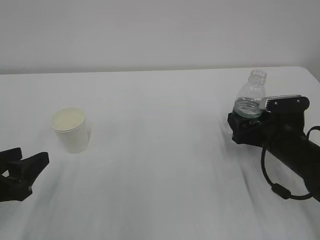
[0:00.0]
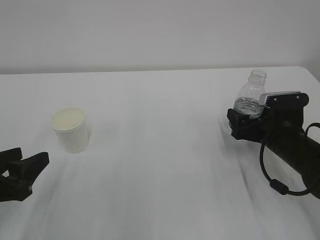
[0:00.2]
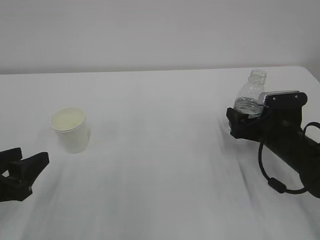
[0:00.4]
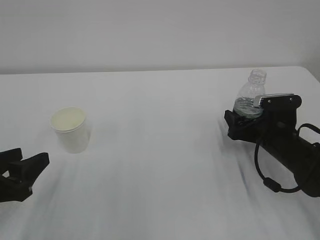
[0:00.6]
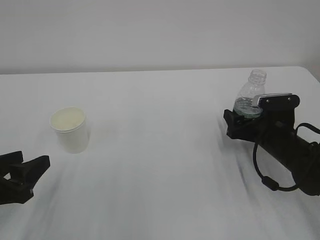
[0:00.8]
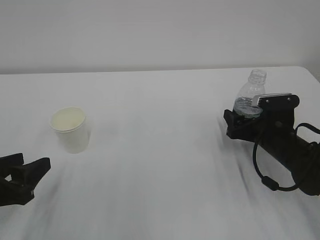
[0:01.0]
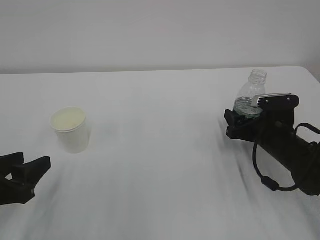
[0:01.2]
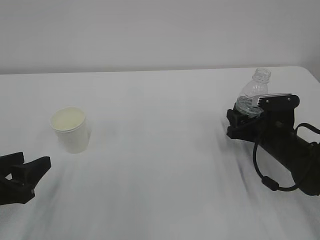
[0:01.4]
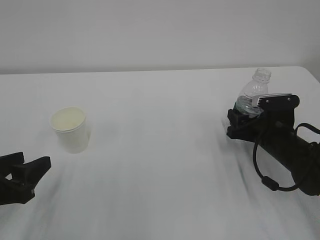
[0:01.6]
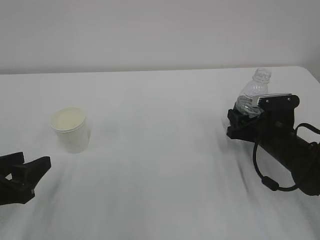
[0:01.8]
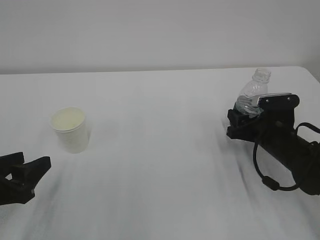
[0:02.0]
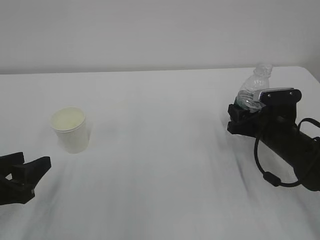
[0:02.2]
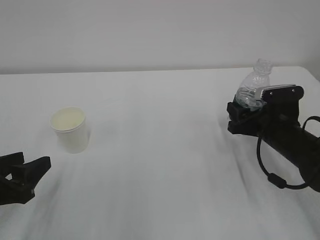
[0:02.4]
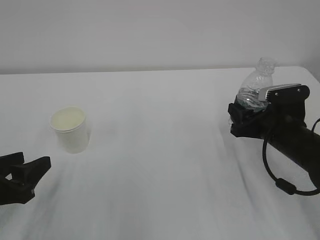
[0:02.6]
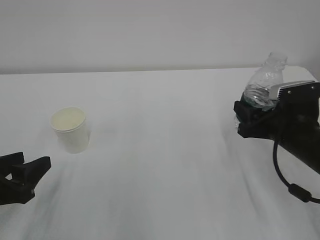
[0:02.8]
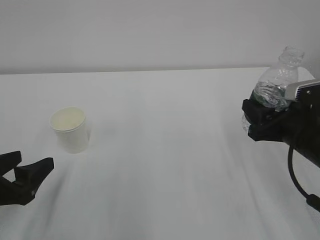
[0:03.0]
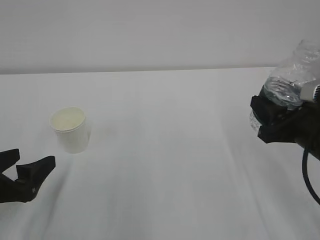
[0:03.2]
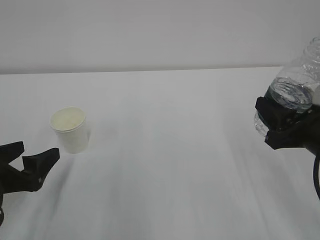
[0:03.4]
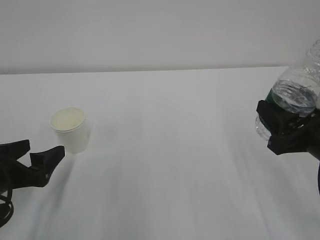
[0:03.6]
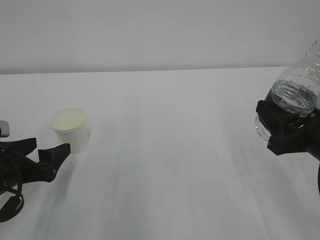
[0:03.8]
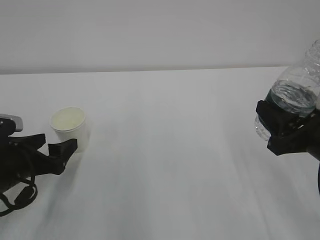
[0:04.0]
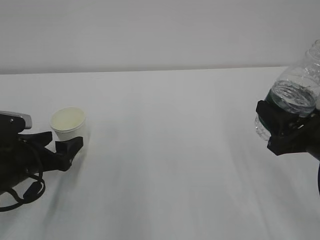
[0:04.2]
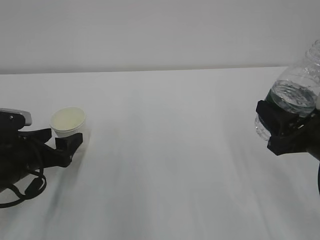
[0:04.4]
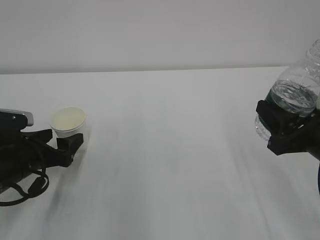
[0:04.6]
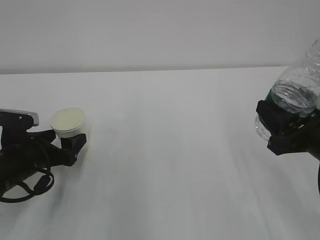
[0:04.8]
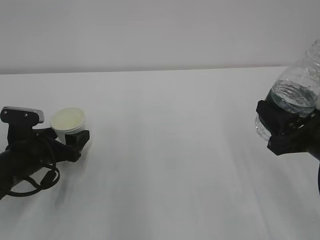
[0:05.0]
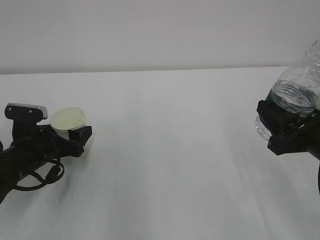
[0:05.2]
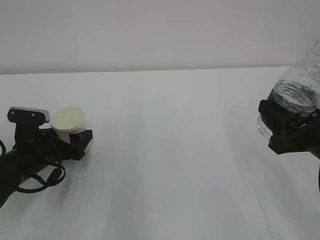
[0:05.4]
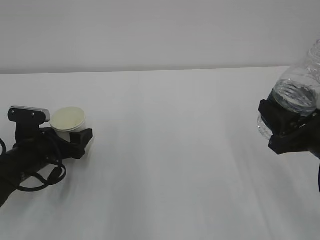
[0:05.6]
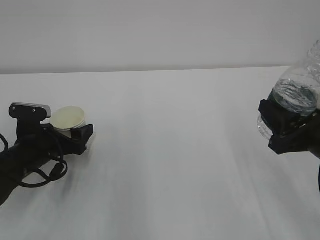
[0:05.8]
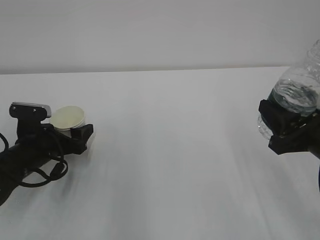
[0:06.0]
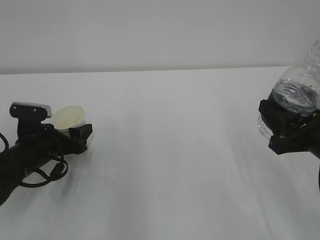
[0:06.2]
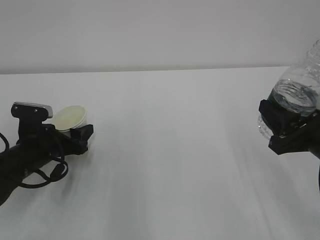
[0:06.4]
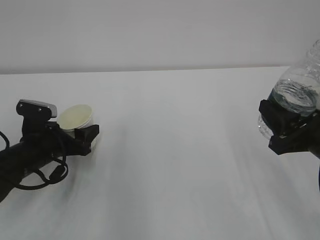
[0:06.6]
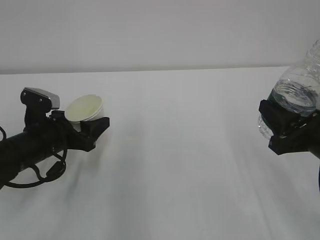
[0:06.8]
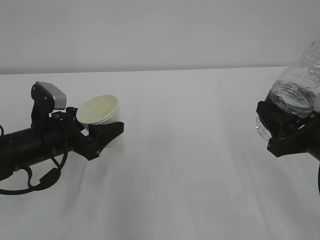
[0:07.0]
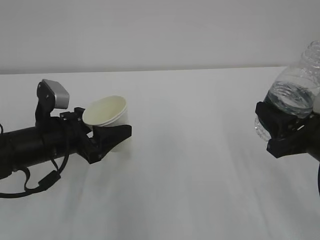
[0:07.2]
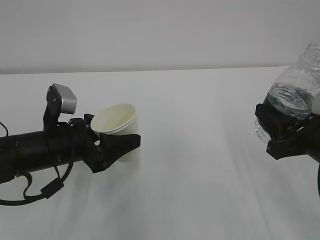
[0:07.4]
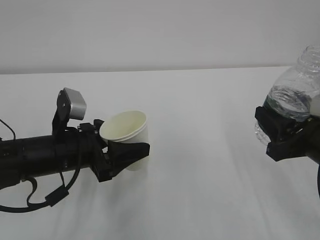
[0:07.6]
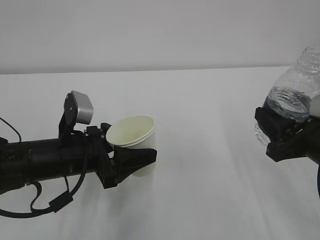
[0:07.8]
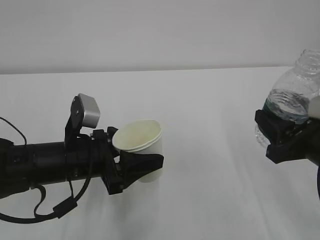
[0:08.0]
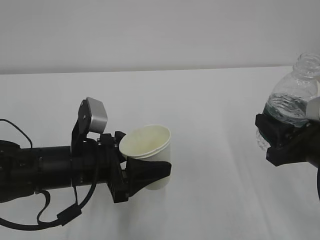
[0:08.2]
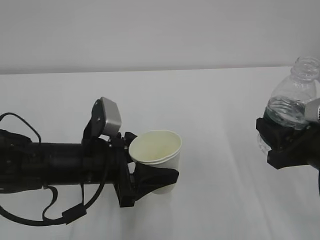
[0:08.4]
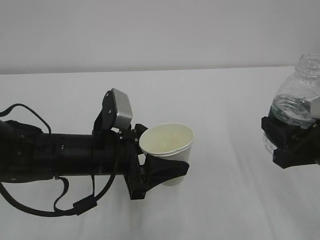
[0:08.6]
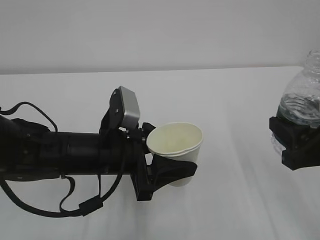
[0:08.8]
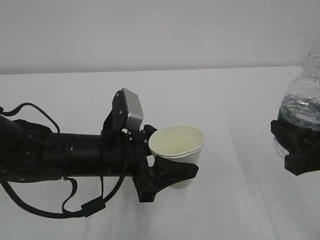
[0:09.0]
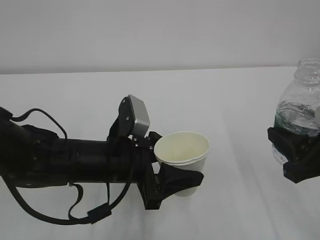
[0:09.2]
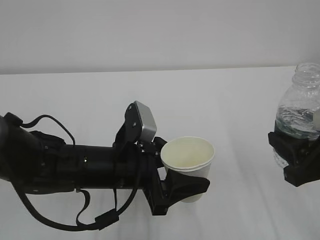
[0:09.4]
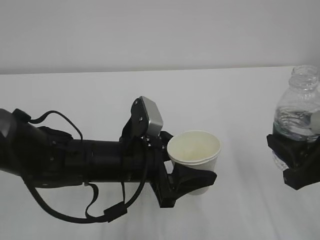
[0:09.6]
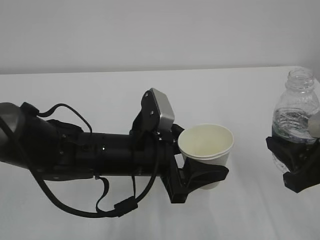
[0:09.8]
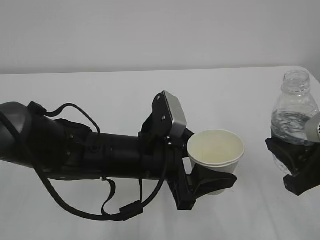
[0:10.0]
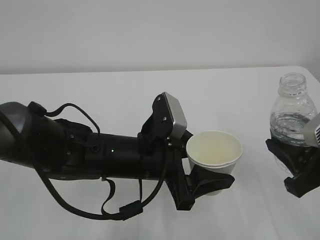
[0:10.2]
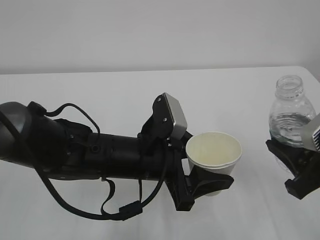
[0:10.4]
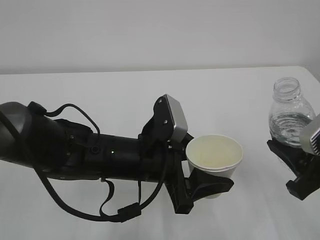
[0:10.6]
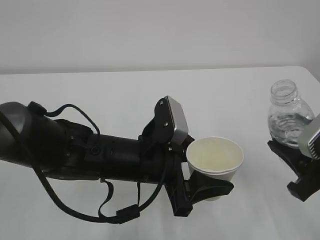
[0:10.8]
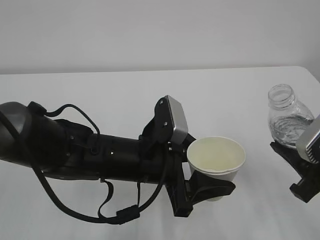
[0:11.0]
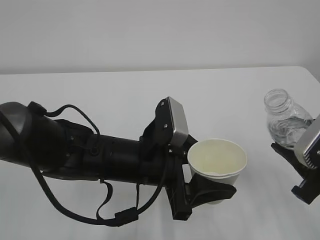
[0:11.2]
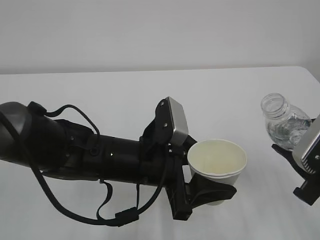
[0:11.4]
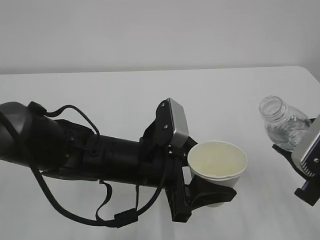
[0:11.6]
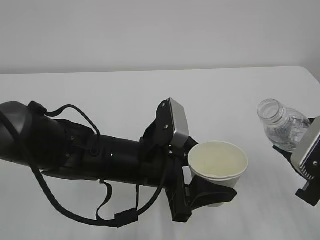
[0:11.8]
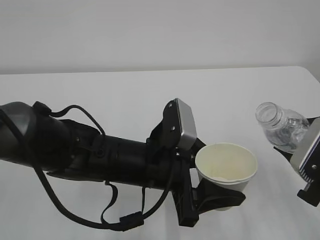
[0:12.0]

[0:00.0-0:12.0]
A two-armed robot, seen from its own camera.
0:00.0 to 0:01.6: The right gripper closes up.
0:01.6 to 0:03.0: The right gripper goes about 10 cm upward and backward.
0:03.0 to 0:04.4: The left gripper travels forward by approximately 10 cm, and opens. The right gripper goes some 5 cm backward.
0:04.4 to 0:06.0: The left gripper moves approximately 5 cm.
0:06.0 to 0:07.6: The left gripper heads to the right and upward, covering about 10 cm, and closes up.
0:07.6 to 0:09.0: The left gripper goes roughly 10 cm to the right.
0:09.0 to 0:10.4: The left gripper travels to the right by about 5 cm.

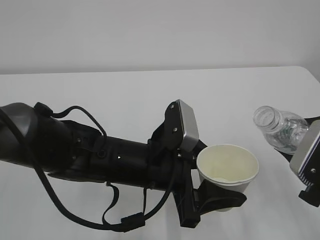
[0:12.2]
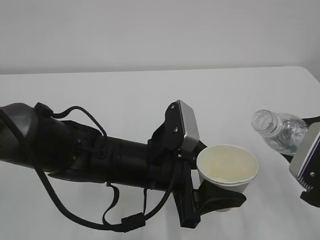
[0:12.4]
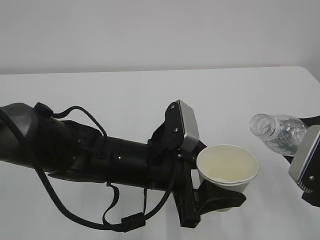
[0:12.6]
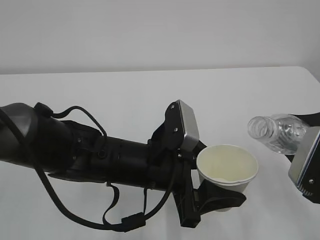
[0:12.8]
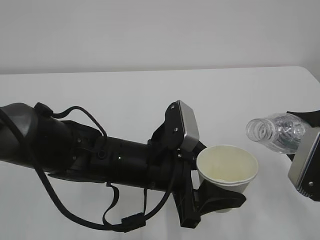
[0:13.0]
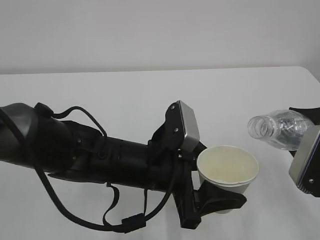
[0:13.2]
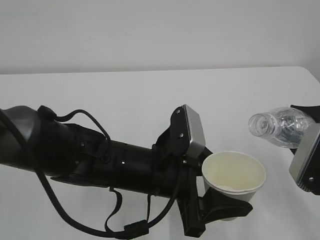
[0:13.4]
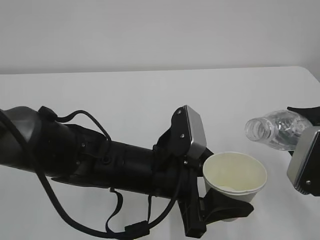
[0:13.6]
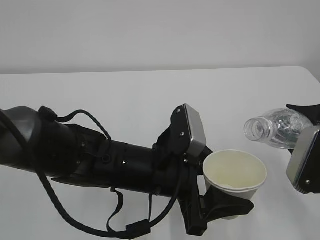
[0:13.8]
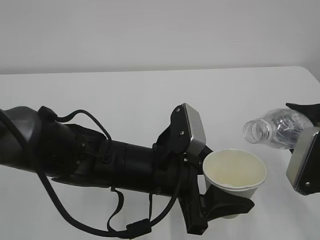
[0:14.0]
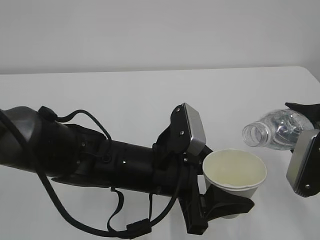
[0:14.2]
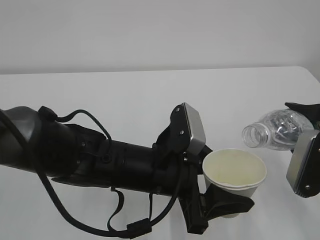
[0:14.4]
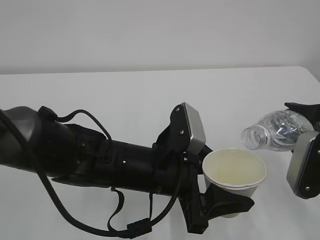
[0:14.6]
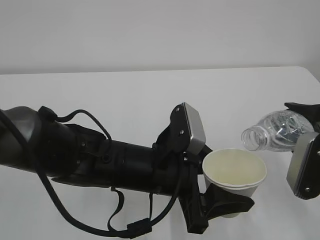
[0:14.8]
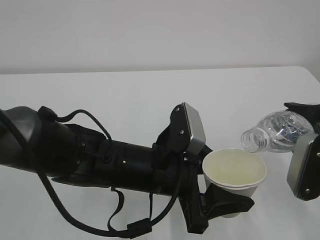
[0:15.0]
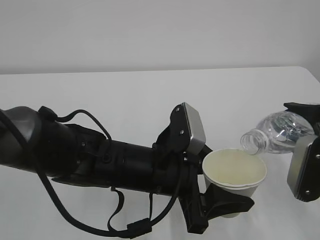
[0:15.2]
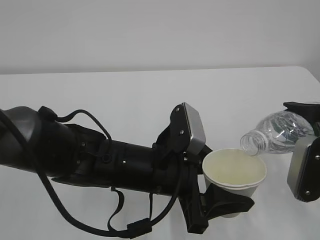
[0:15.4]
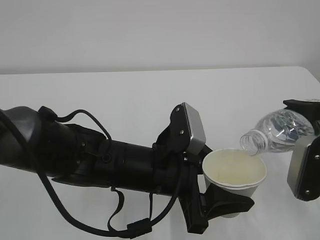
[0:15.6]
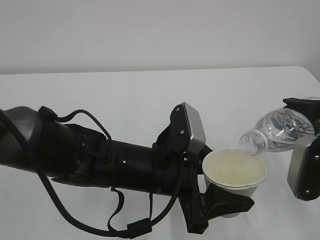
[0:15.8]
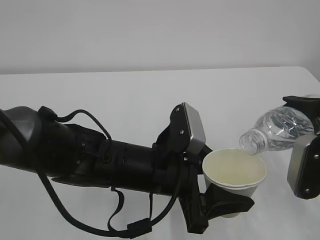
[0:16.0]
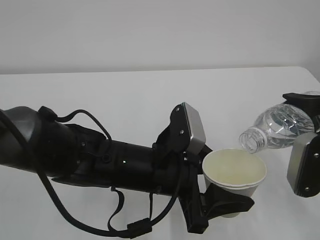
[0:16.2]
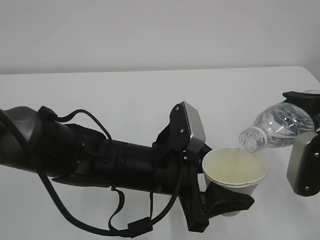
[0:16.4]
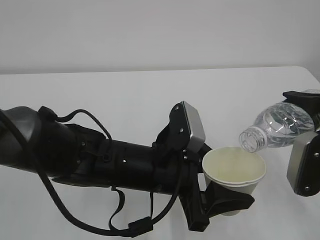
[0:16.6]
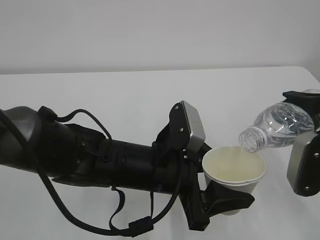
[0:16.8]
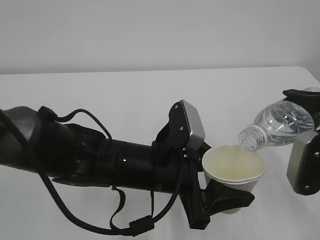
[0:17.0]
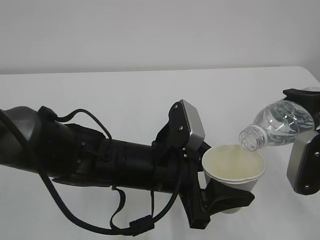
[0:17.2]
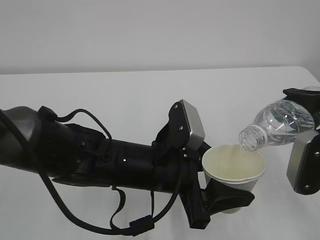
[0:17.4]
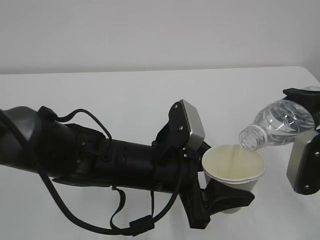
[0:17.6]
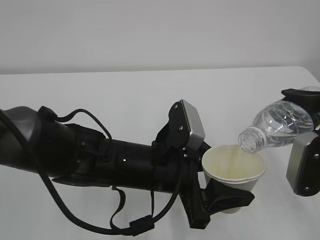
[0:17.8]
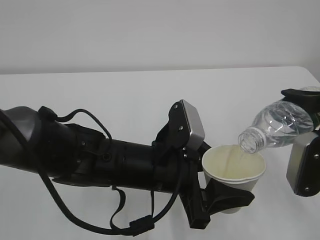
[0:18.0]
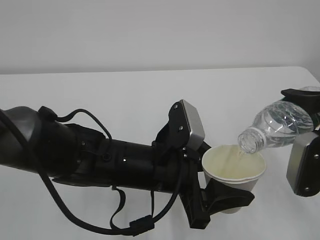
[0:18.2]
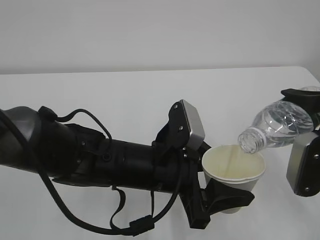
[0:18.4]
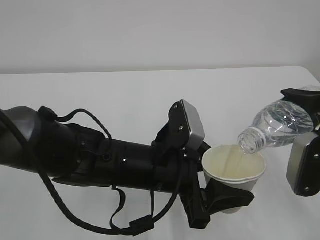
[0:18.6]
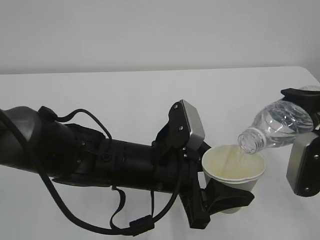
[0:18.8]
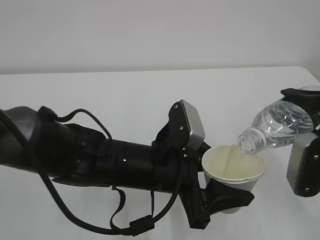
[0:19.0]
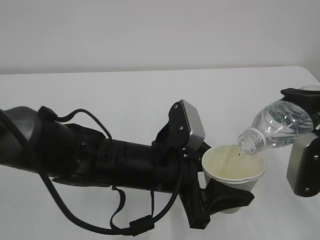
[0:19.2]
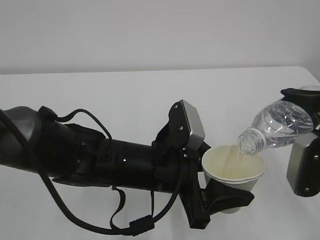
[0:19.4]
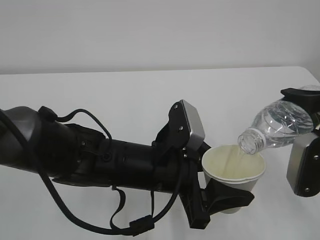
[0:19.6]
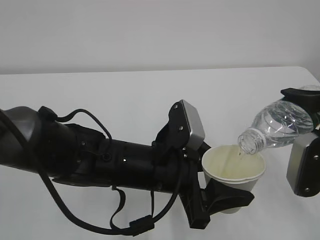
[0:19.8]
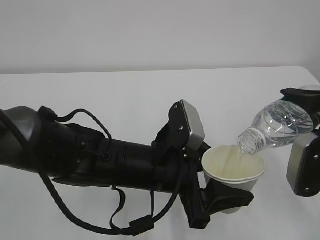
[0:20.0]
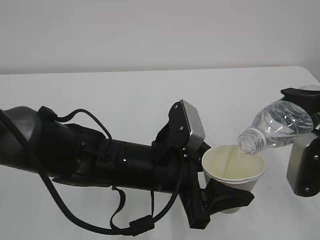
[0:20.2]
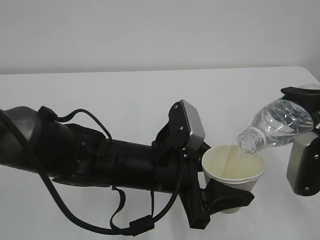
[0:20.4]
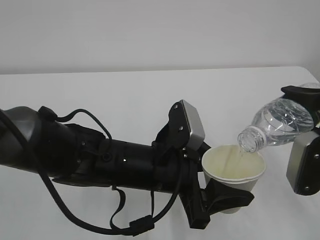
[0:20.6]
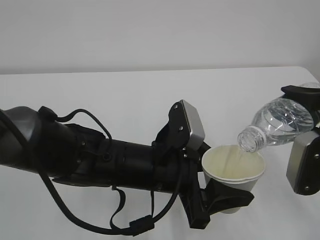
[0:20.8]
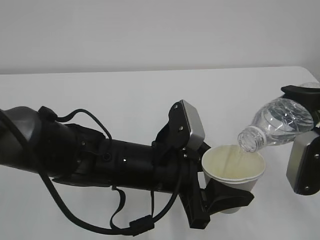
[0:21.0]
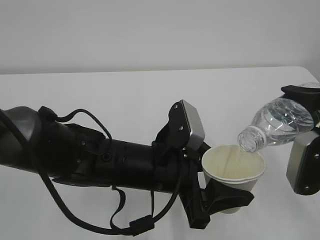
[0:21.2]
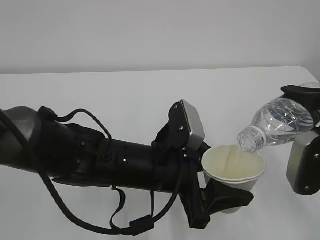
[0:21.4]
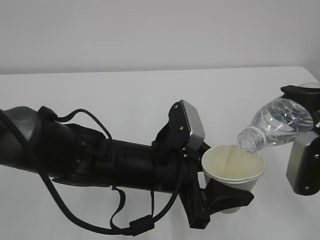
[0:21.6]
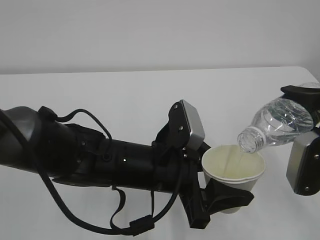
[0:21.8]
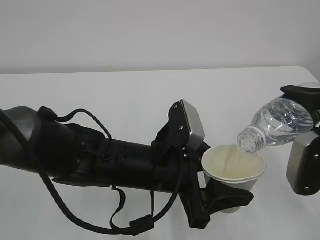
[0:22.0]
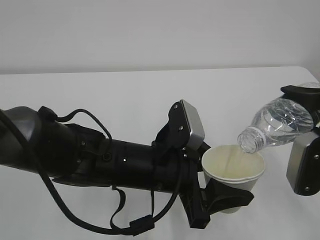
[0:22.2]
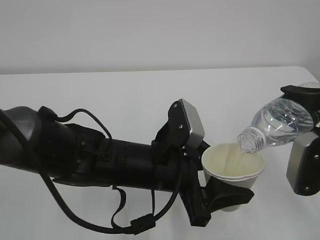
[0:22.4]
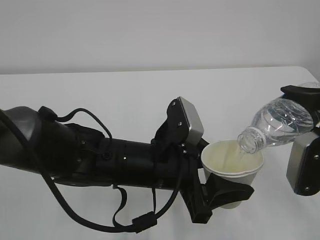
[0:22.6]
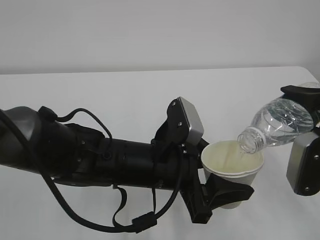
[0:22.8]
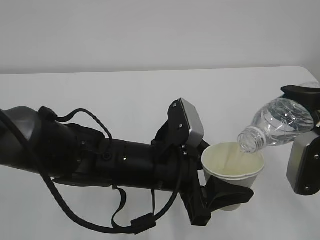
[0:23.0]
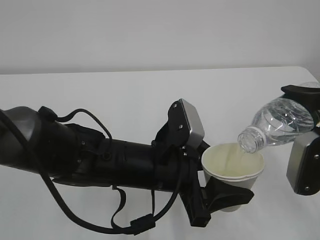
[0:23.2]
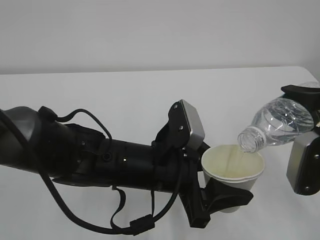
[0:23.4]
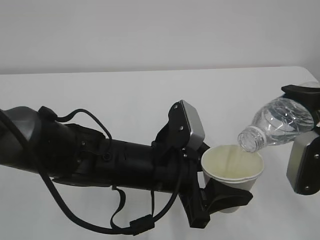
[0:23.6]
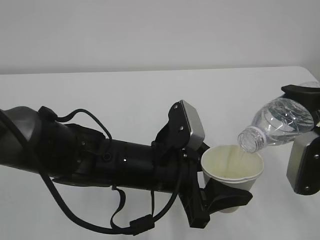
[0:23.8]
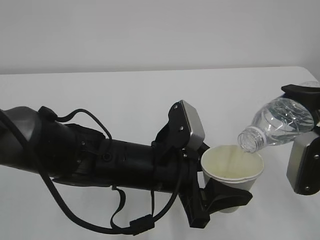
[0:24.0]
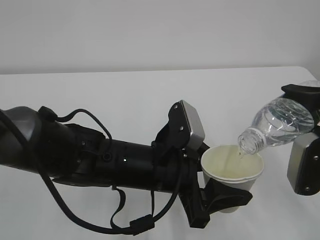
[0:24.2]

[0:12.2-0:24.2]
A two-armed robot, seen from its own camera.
0:12.2 to 0:13.8: The grippers make only small movements.
0:13.8 to 0:16.6: There are only small adjustments of the grippers.
0:16.6 to 0:22.6: Both grippers stay put.
0:22.6 to 0:24.2: Both grippers stay about where they are.
